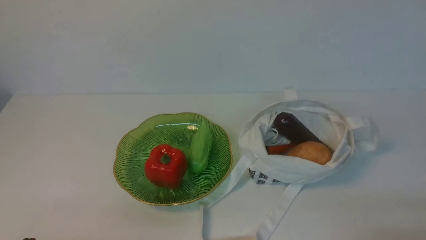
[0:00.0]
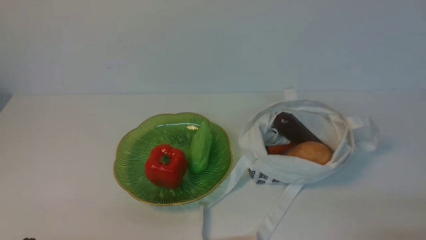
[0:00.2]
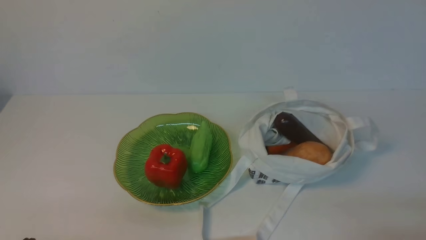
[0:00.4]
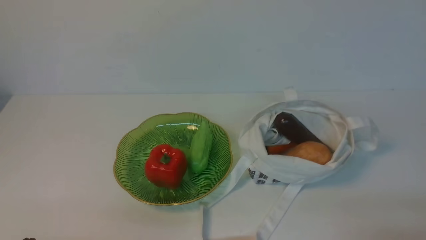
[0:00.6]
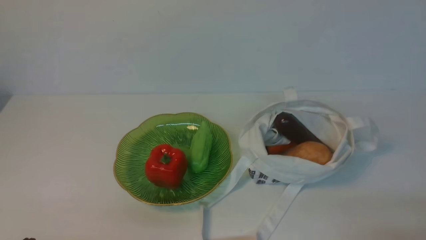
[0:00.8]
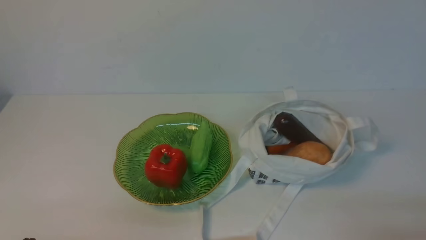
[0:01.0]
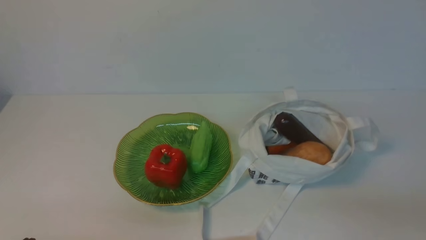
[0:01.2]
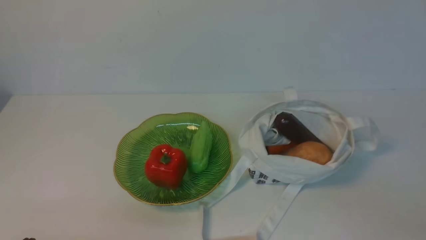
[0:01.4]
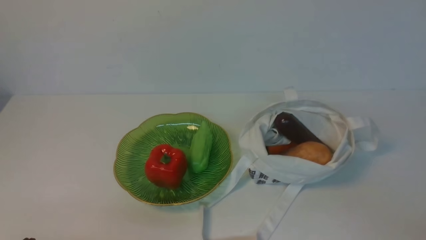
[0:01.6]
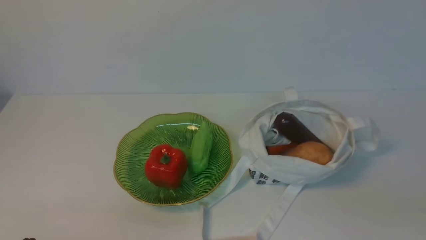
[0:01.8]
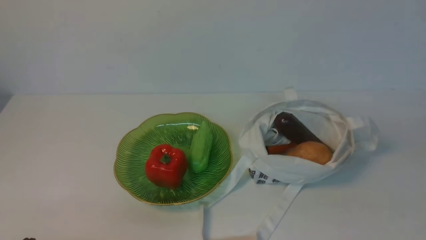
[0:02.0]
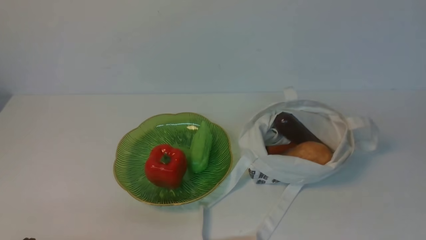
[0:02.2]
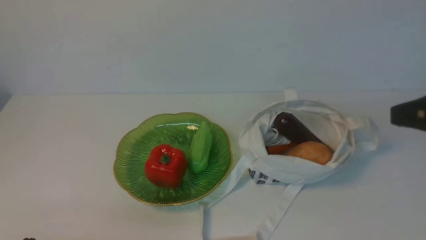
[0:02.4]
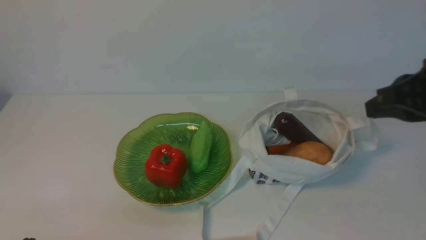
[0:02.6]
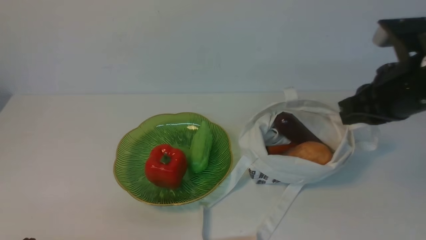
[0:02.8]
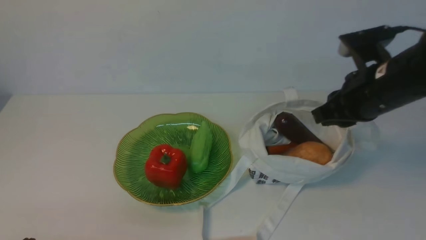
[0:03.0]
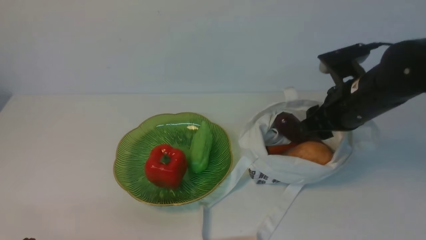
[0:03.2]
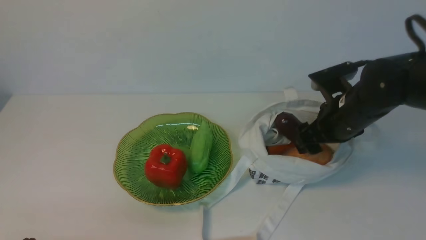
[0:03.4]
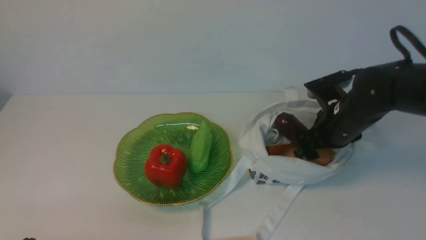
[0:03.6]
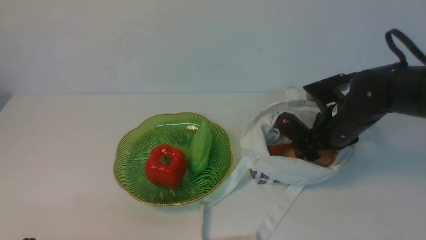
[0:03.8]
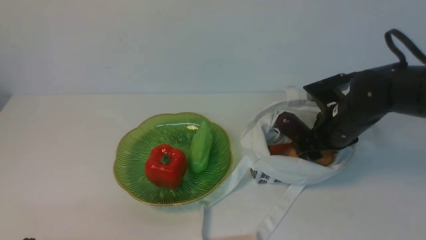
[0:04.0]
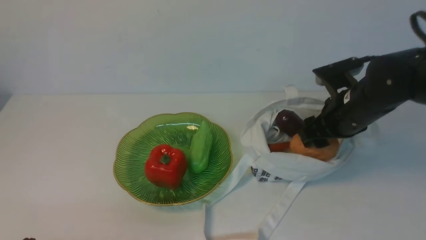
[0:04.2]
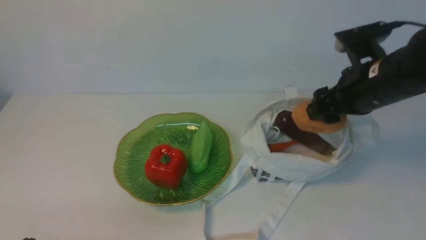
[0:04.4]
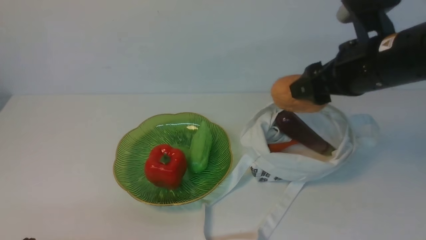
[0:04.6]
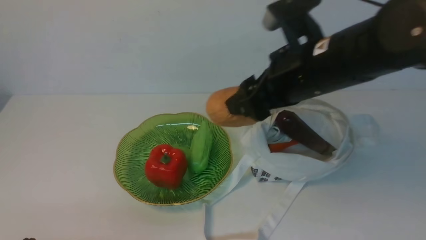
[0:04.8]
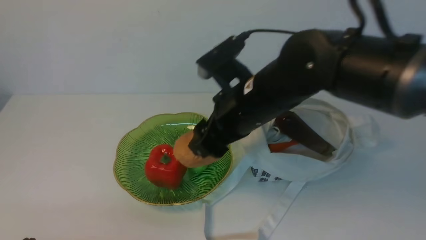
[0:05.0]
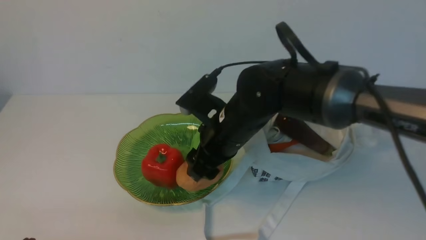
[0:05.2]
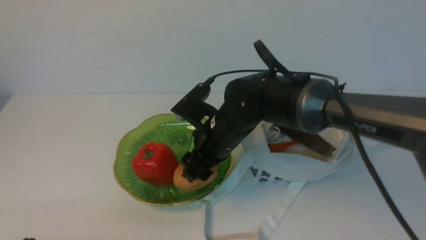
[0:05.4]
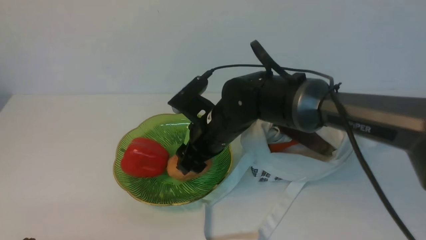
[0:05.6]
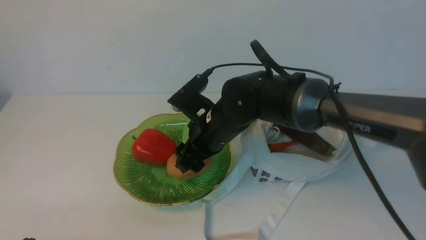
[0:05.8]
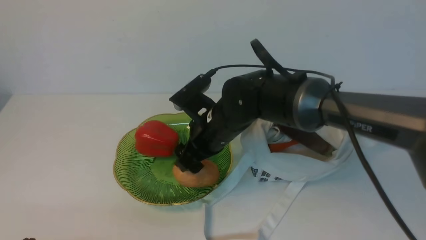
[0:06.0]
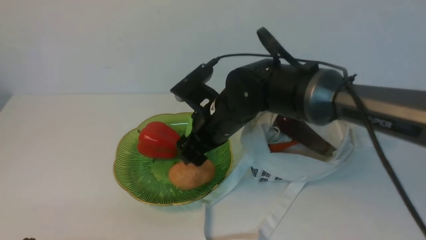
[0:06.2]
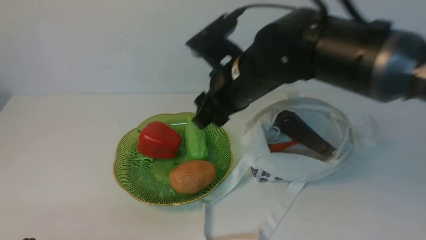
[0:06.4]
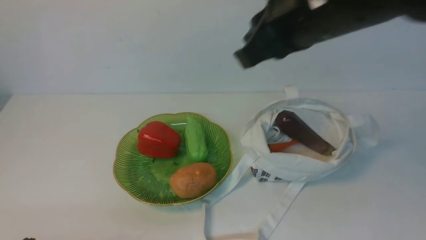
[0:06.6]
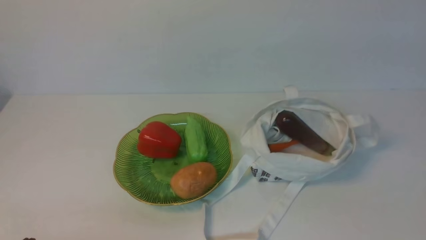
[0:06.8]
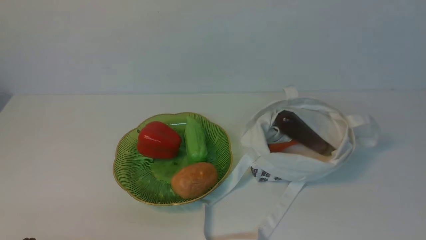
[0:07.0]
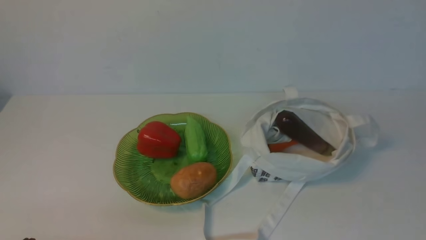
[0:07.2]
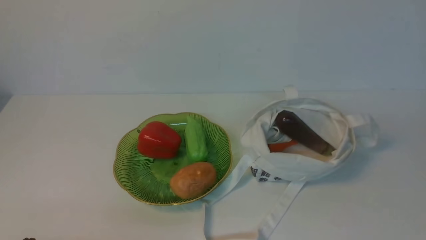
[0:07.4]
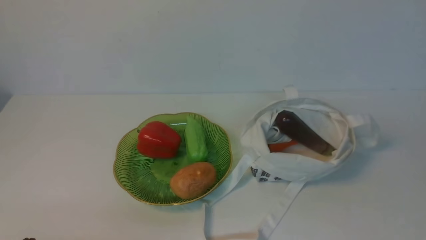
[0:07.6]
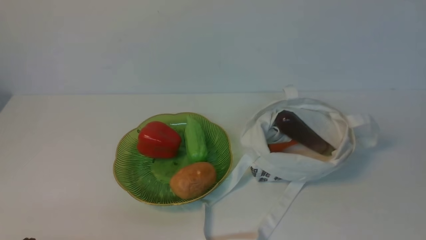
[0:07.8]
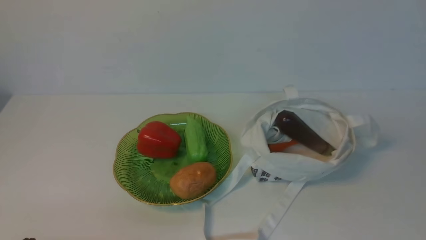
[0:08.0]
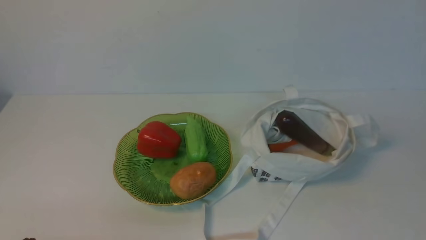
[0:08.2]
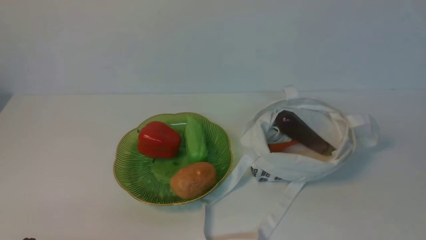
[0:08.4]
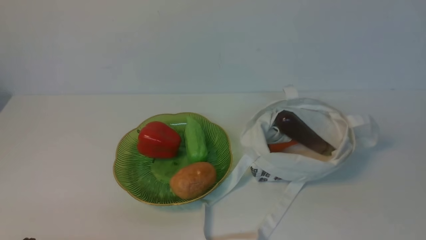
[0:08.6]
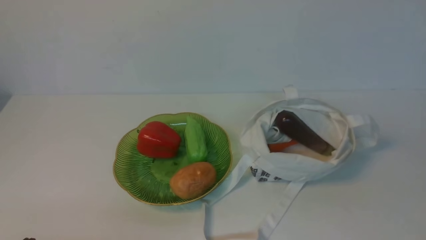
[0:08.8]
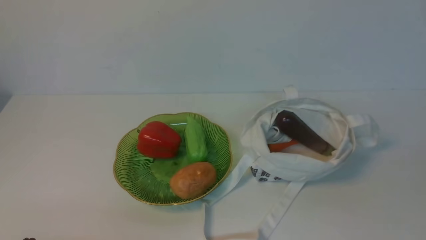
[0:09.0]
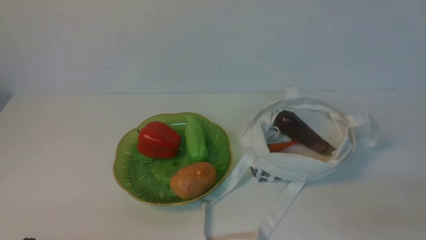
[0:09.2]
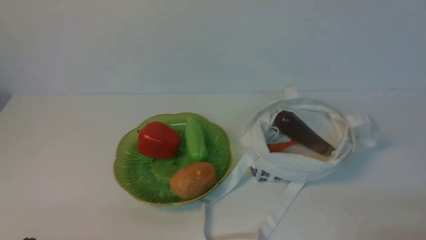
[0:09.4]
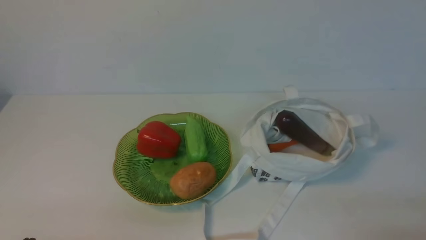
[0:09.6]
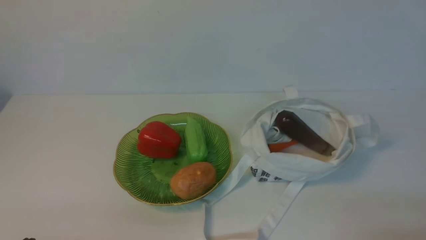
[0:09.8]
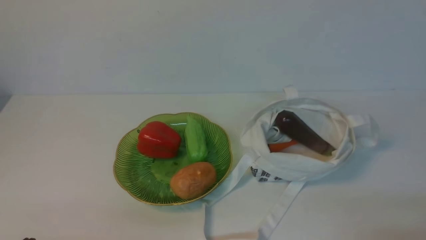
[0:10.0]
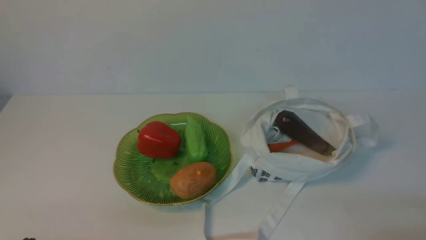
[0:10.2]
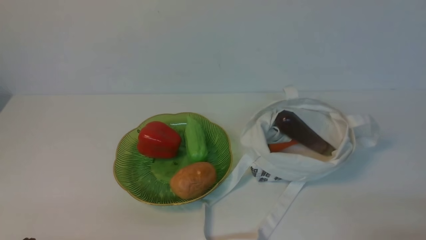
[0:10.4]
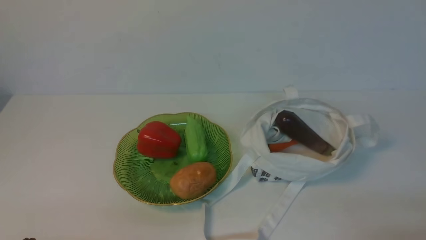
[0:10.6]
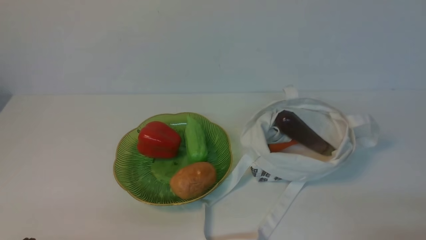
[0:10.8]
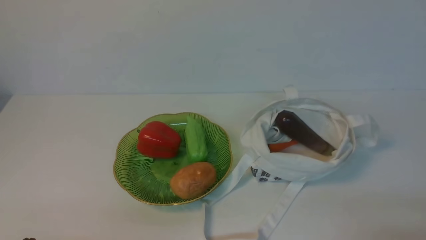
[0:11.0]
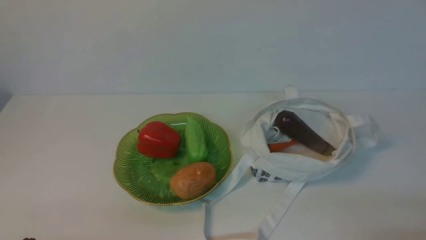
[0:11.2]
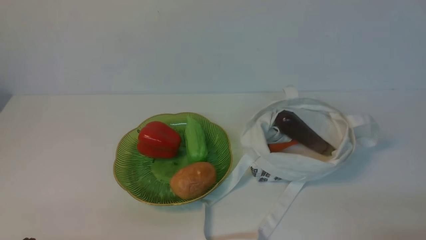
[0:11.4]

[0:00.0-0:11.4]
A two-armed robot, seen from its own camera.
Task of the whole recording: take vegetables from cloth bag on white table place on plate.
Step, 0:00.0 to 0:04.0: Grasp the potato with right gripper.
Step, 0:04.2 to 0:06.2: Place the potato on the plate with right gripper.
0:01.4 to 0:02.8: The right gripper travels forward and upward by some 25 cm.
0:02.8 to 0:04.2: The right gripper travels downward and forward by approximately 10 cm, and opens up.
0:04.2 to 0:05.6: The right gripper heads to the left, covering roughly 20 cm.
0:05.6 to 0:07.2: The right gripper shifts approximately 50 cm to the right, backward and upward, and closes its fingers.
0:10.0 to 0:11.4: The two grippers keep their place.

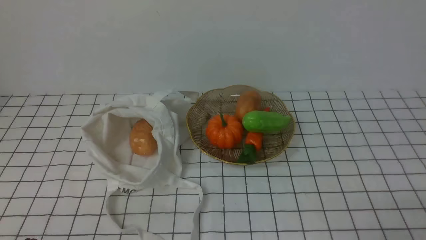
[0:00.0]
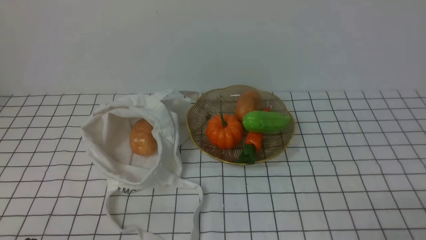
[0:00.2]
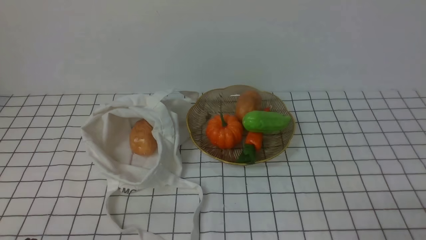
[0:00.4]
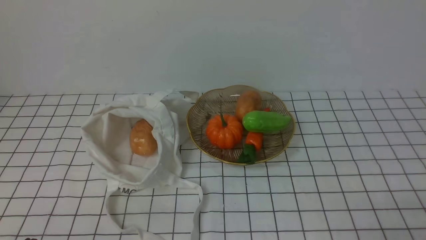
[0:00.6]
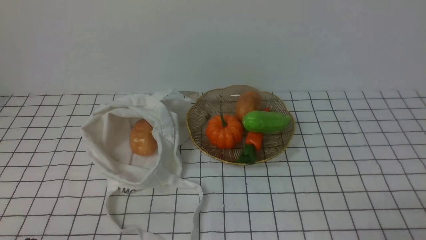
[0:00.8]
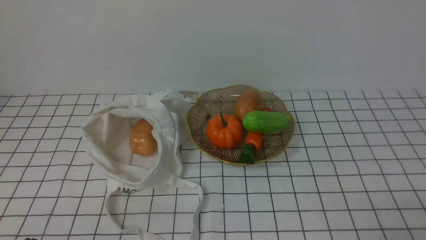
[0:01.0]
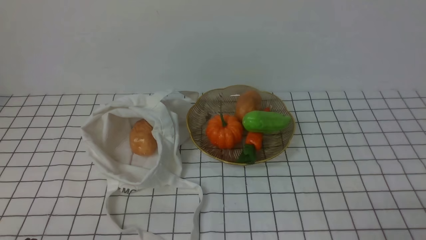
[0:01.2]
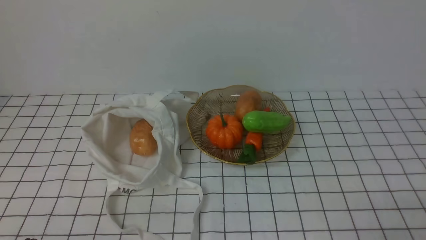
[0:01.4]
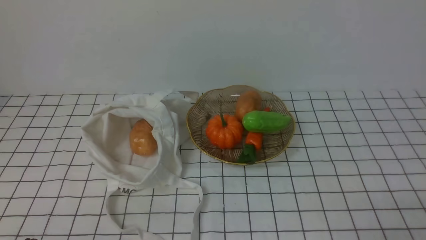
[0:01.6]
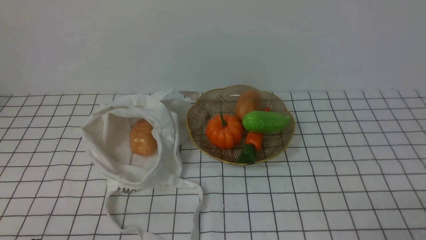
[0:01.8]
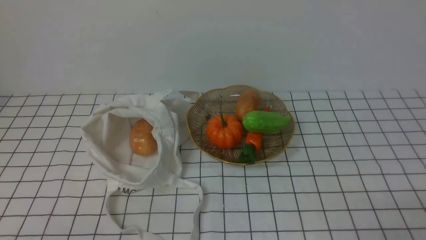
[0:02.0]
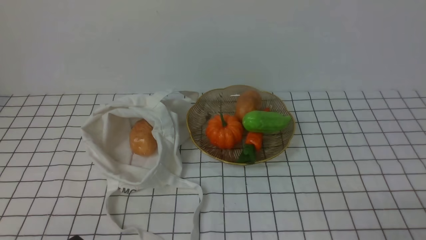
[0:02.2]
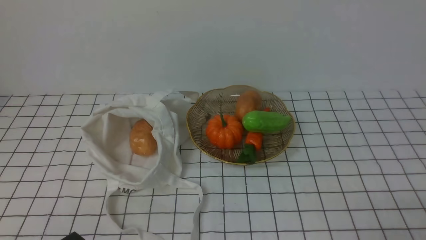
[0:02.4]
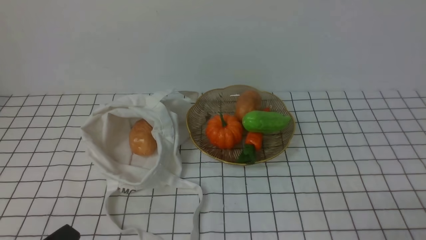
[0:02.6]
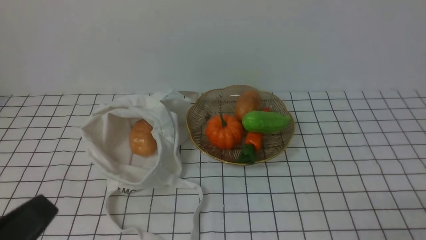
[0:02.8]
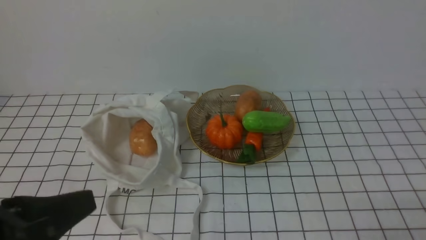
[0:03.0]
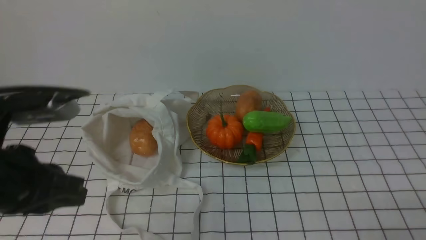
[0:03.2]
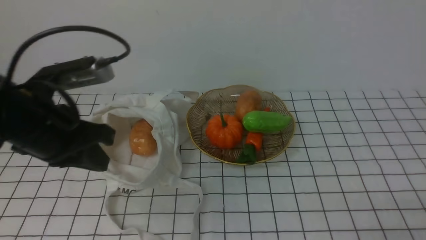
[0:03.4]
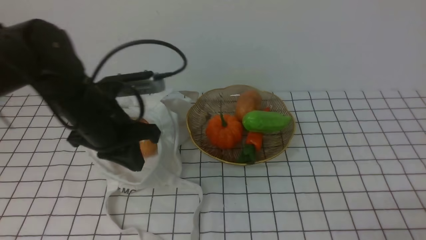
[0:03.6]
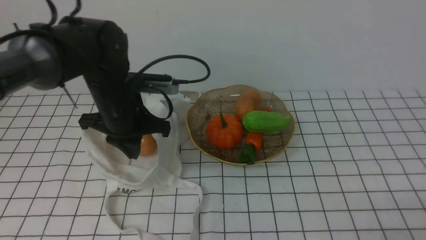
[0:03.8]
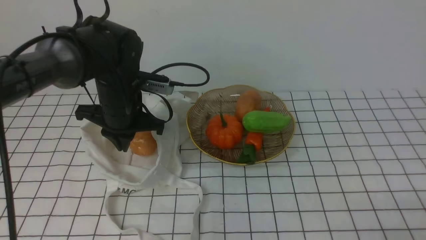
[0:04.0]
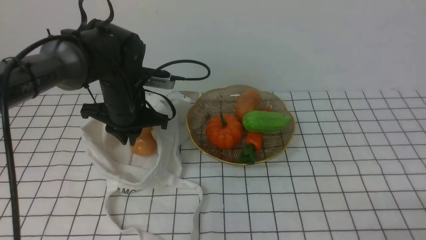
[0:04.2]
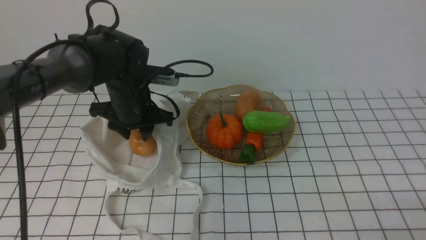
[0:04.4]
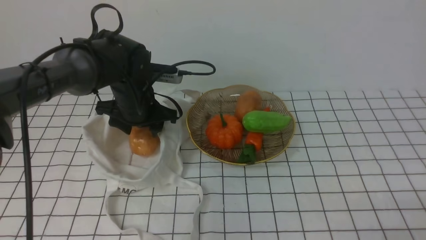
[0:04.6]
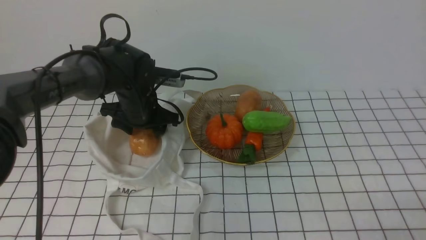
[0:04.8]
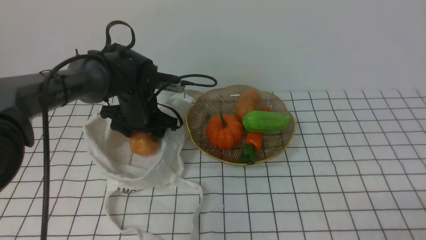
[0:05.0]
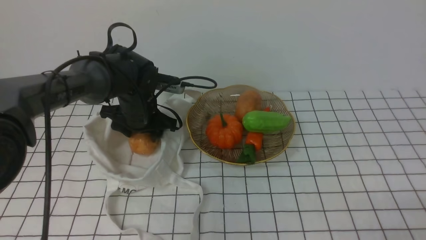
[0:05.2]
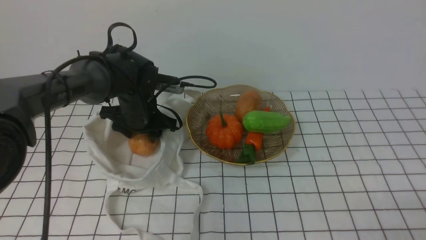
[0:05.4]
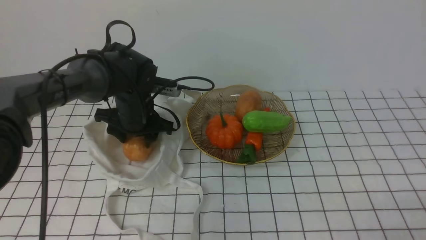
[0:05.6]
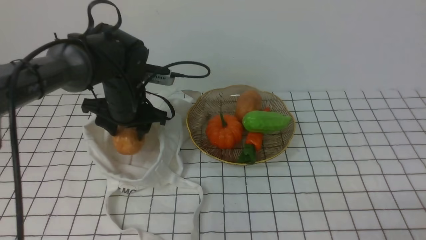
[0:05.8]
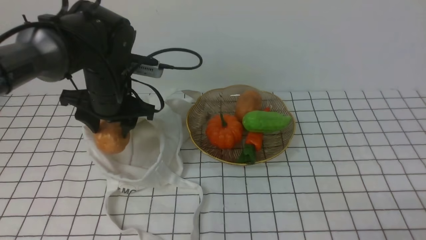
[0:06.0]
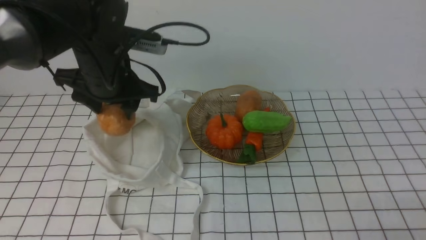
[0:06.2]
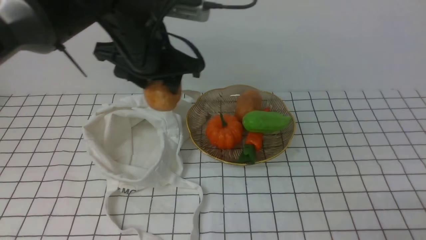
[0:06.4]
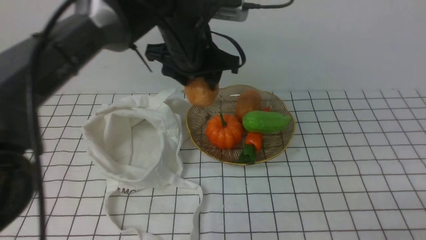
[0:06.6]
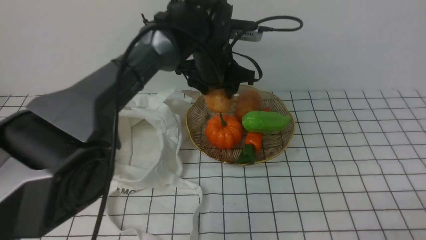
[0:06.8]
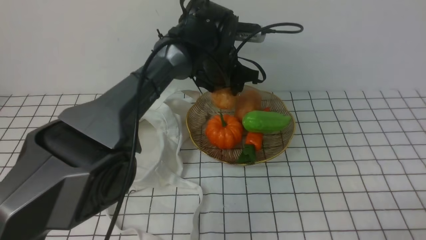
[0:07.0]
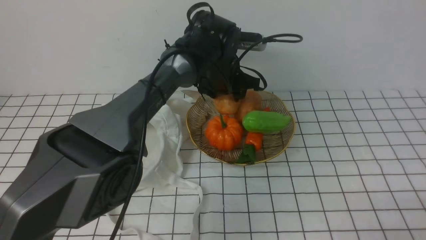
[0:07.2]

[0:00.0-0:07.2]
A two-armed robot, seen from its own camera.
Task of the whole recording: take vegetables from bag on white checkered tablecloth place on plate.
Step, 0:00.0 to 0:05.2: Grasp the potato with left gripper.
0:00.0 to 0:01.4: Neither gripper changes place.
0:01.4 to 0:02.8: The left gripper moves upward, roughly 10 cm.
0:02.8 to 0:04.4: The left gripper shifts roughly 35 cm forward, and opens.
0:04.4 to 0:05.8: There are only small adjustments of the grippers.
0:05.8 to 0:07.2: The left gripper moves to the right and forward, approximately 20 cm.
